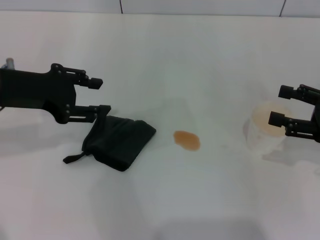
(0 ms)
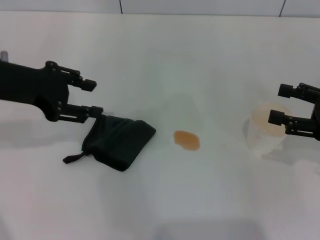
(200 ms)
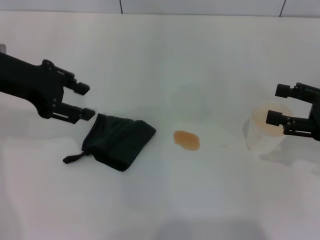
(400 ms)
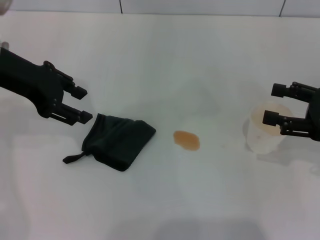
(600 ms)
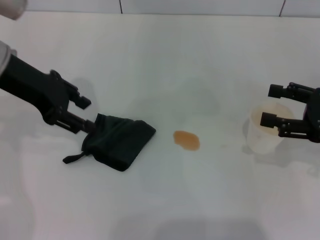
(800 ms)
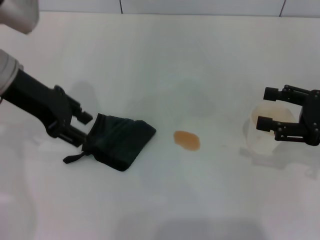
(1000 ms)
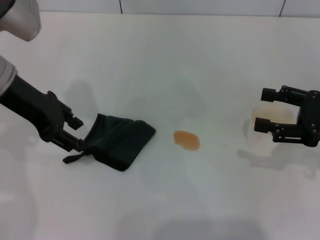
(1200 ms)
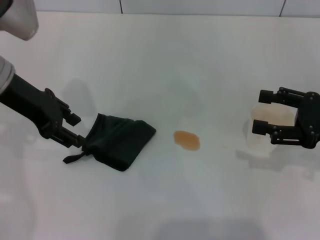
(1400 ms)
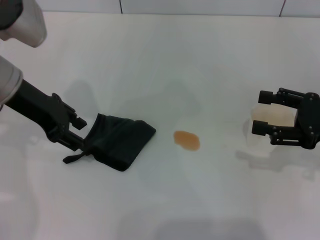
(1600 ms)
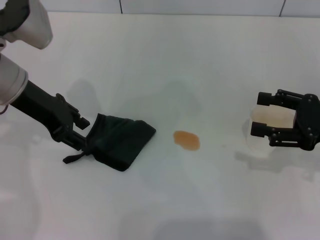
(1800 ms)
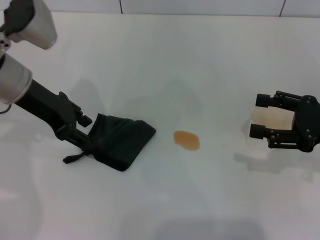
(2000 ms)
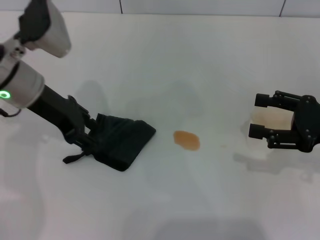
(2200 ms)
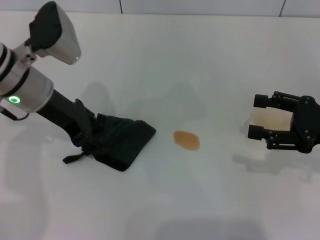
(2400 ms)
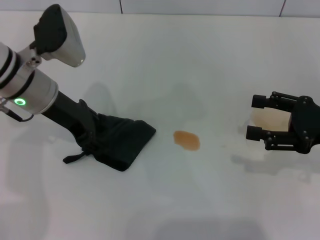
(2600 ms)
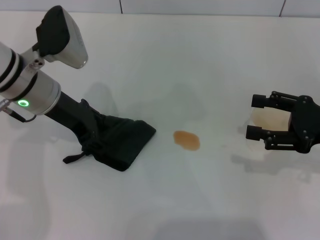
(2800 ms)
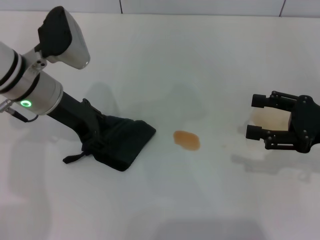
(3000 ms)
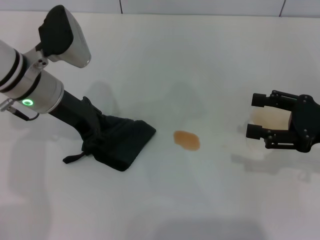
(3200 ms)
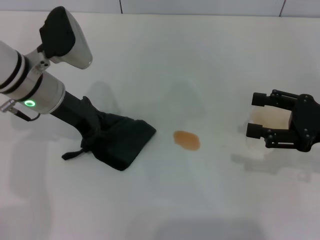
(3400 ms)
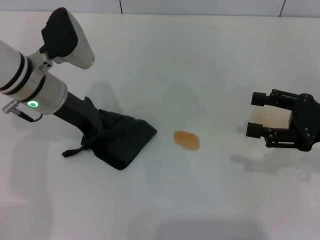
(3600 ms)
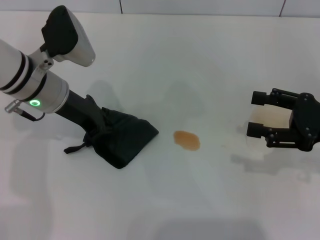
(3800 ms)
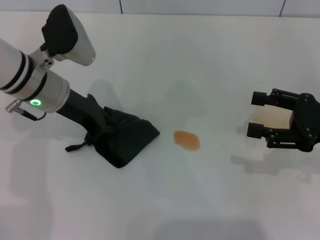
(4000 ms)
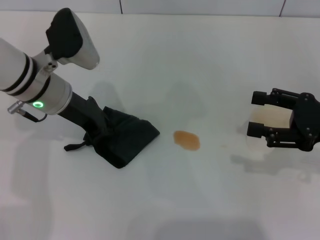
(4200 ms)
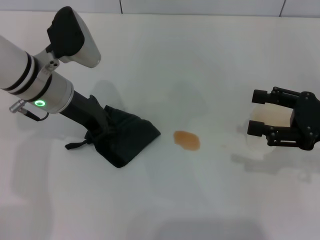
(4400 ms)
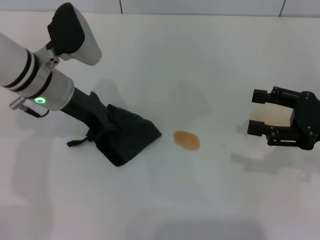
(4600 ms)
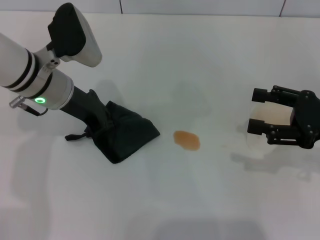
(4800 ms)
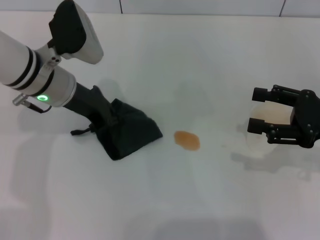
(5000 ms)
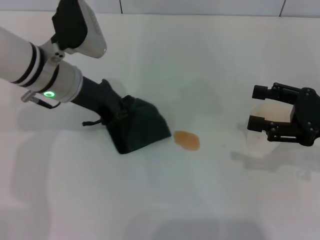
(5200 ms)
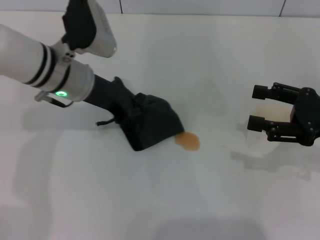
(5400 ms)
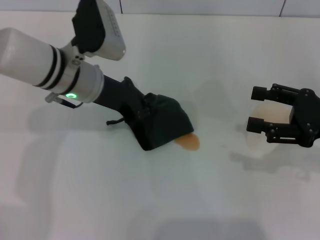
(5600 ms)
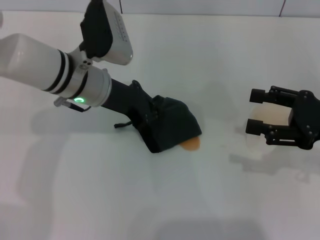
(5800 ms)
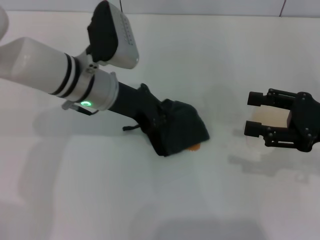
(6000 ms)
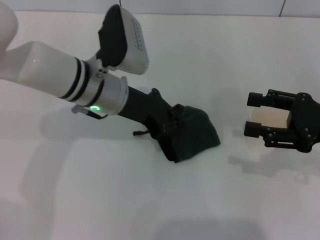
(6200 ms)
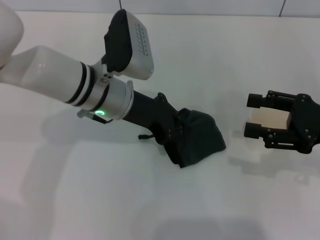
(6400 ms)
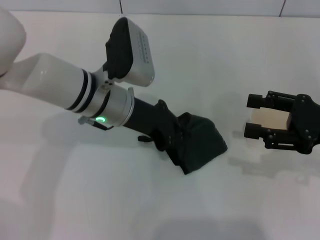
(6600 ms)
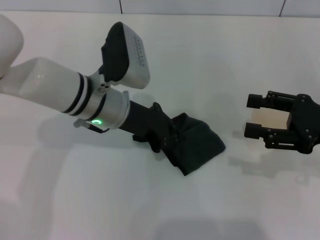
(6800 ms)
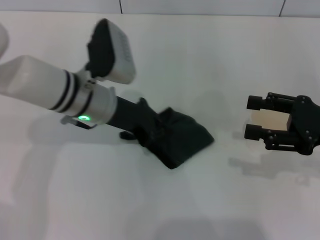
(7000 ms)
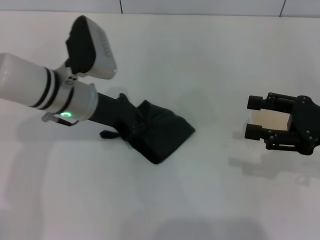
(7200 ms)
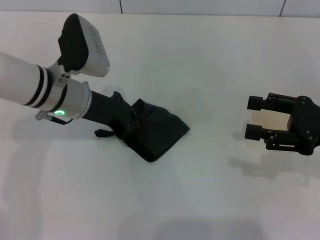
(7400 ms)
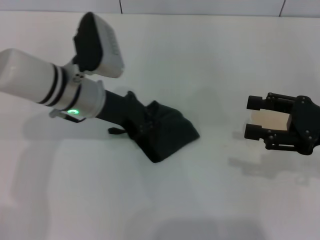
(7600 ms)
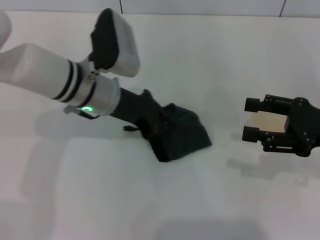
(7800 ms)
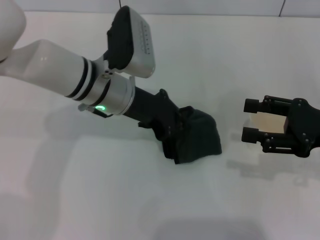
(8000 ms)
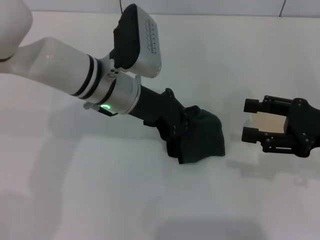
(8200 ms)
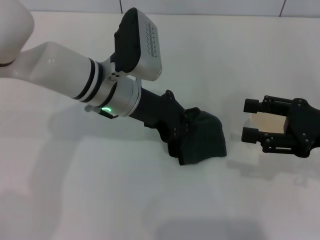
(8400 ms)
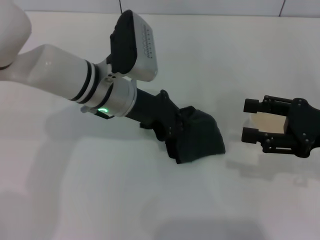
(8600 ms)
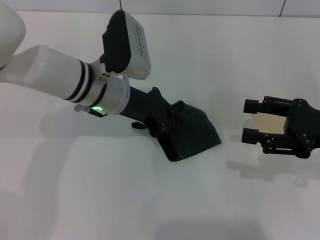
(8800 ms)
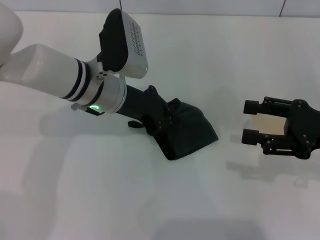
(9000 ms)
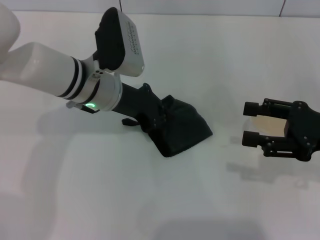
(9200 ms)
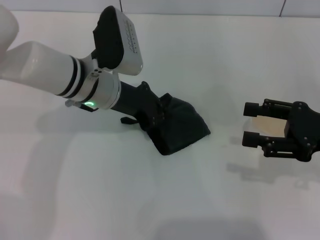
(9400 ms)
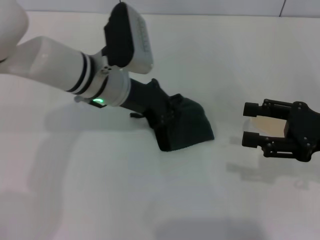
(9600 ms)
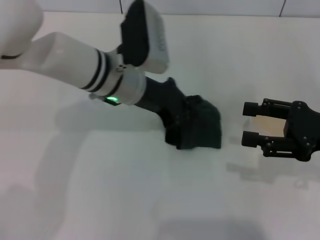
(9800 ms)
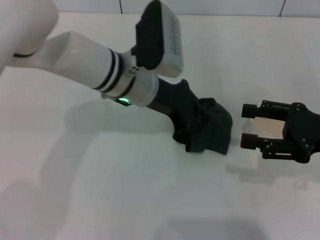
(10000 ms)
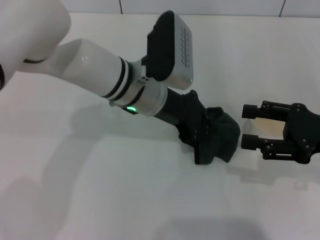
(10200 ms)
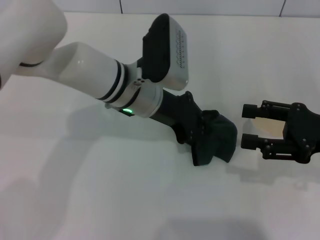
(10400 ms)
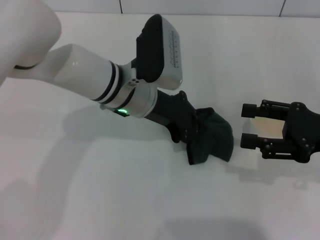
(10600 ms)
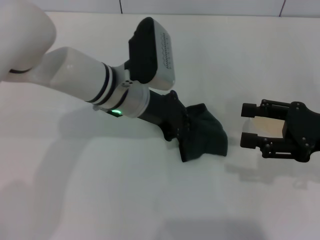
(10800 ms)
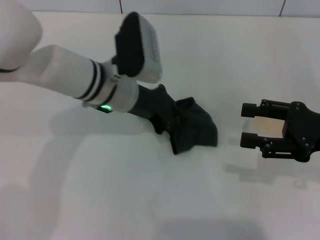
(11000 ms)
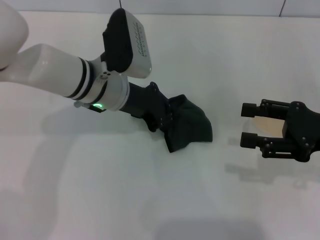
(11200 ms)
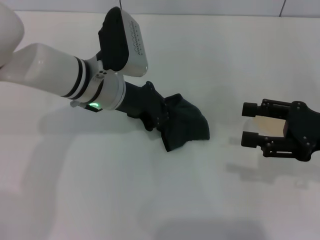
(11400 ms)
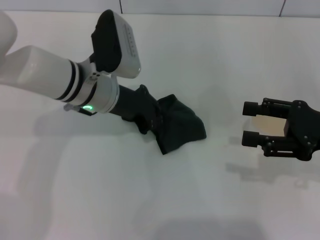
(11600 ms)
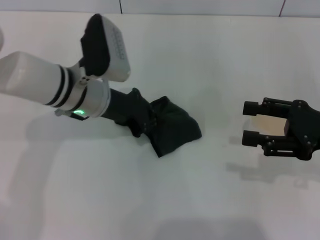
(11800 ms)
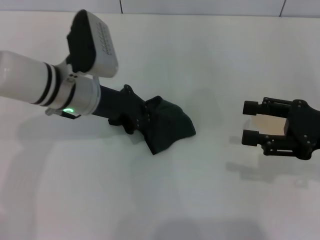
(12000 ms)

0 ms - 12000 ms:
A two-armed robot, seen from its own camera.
Step, 0 ms - 4200 ms: Grasp the rag with the left gripper.
1600 ms - 3000 ms: The left gripper moves approximately 5 cm.
3000 ms - 4400 ms: The left gripper closes its fingers.
4400 ms - 6000 ms: The right gripper closes up. The left gripper heads to the right, covering approximately 5 cm.
6000 ms - 9000 ms: The grippers stay close to where they were, moving slightly.
9000 ms - 10400 ms: The left gripper goes about 5 cm to the right.
10400 ms - 12000 ms: The left gripper heads to the left, covering roughly 10 cm.

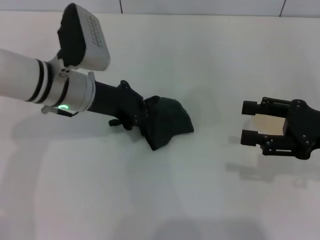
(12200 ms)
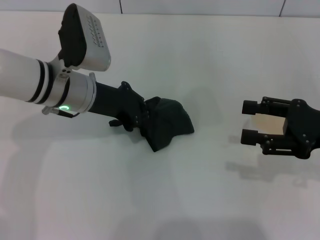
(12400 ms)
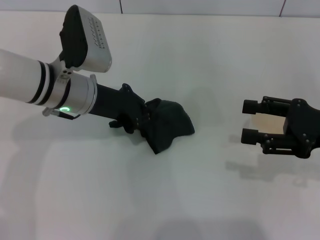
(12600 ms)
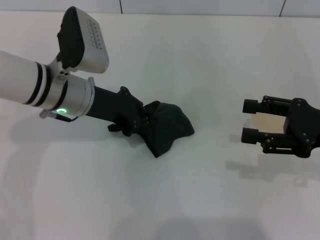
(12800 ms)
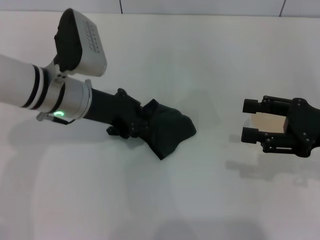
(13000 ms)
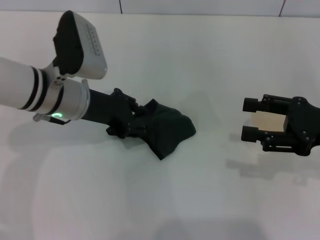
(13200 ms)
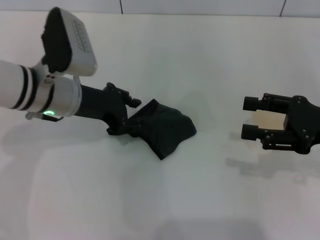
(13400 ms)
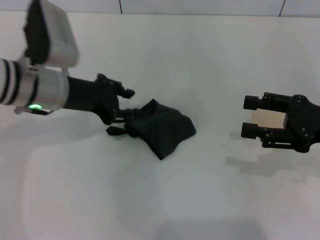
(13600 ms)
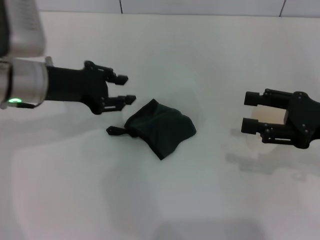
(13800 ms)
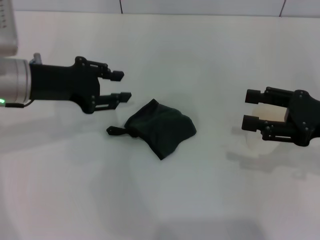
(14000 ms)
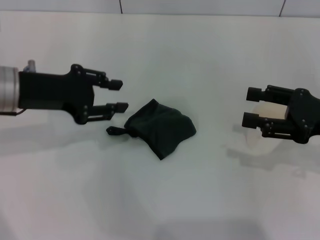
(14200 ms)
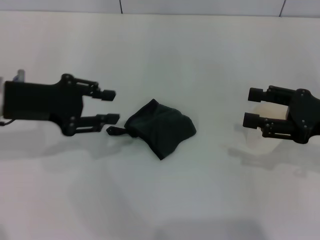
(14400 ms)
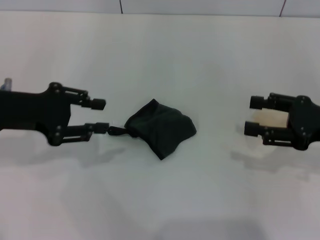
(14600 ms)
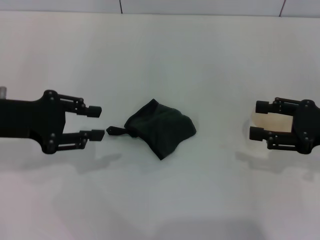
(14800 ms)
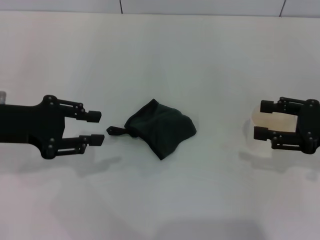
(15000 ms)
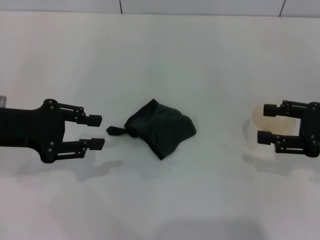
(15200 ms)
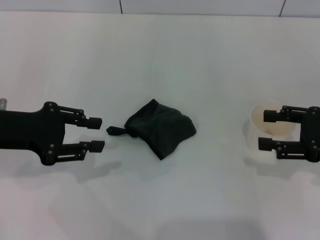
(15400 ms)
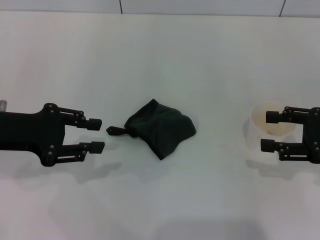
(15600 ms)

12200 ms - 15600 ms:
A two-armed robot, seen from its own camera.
Step, 12600 ms - 13600 ms: Place the rag on the table with the left gripper.
12200 ms - 13800 ms: The left gripper goes about 5 cm to the left, and opens.
13800 ms - 15600 ms: The left gripper moves to the left and backward, about 10 cm.
